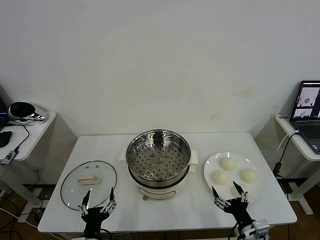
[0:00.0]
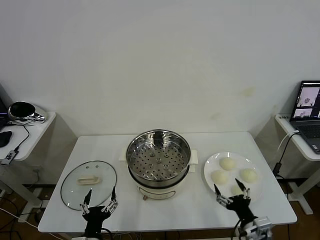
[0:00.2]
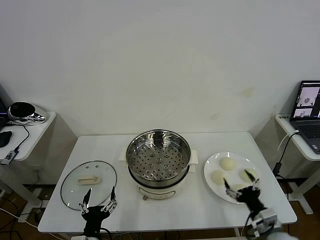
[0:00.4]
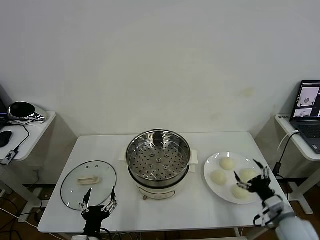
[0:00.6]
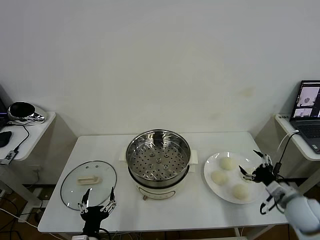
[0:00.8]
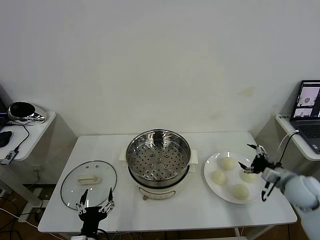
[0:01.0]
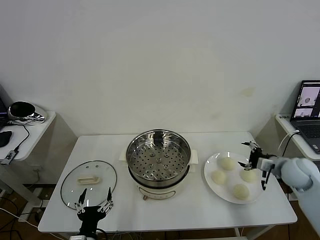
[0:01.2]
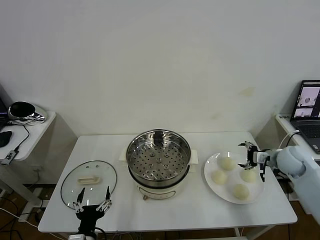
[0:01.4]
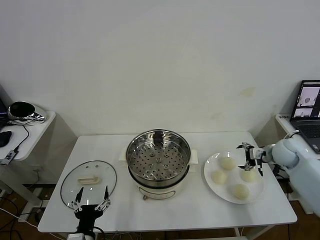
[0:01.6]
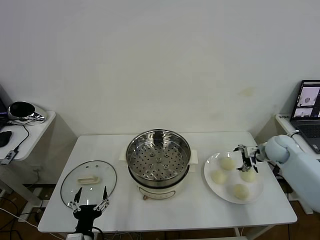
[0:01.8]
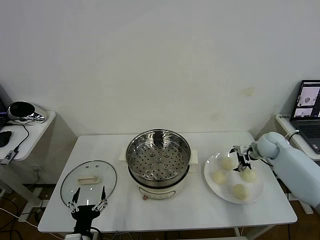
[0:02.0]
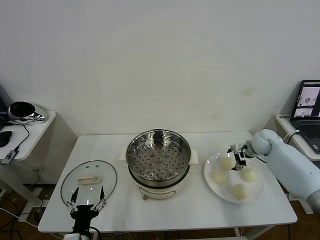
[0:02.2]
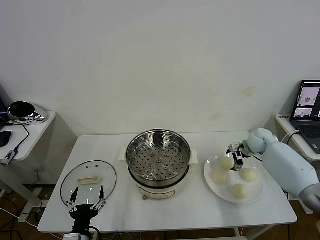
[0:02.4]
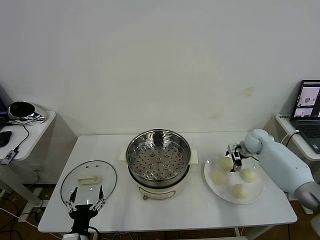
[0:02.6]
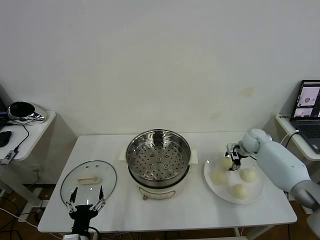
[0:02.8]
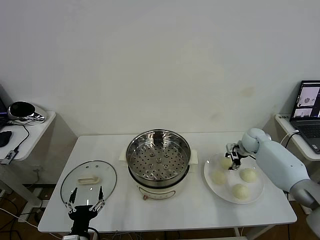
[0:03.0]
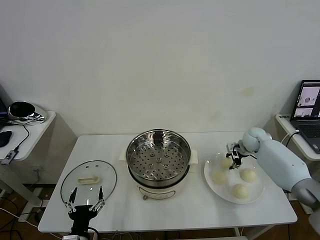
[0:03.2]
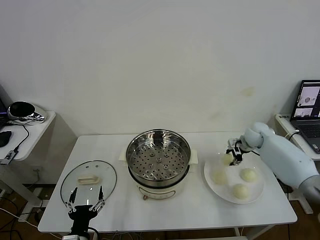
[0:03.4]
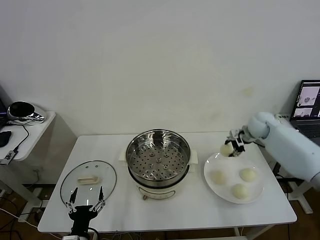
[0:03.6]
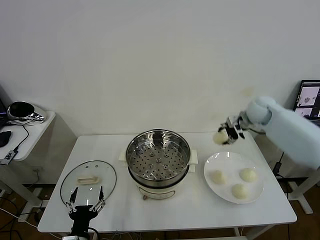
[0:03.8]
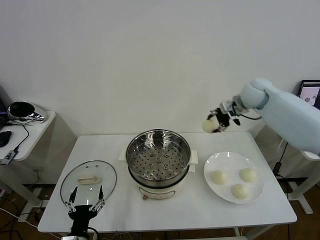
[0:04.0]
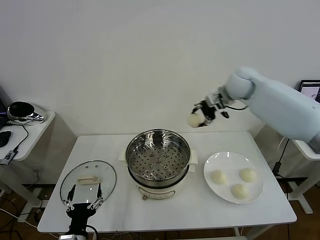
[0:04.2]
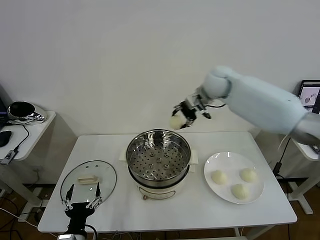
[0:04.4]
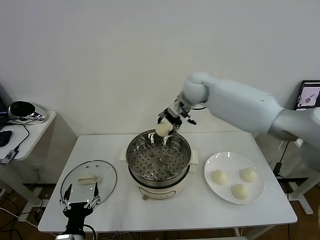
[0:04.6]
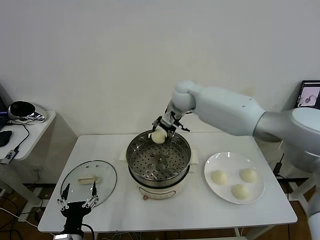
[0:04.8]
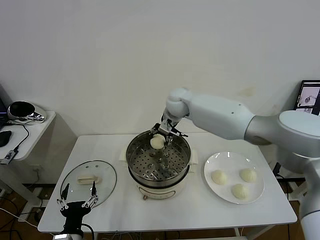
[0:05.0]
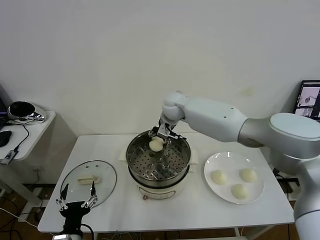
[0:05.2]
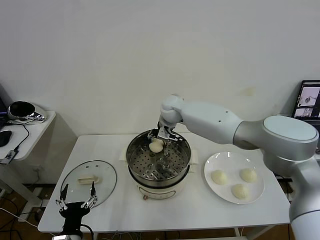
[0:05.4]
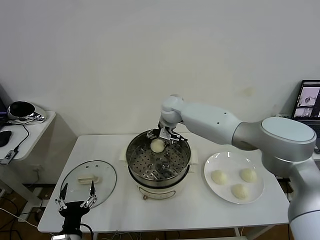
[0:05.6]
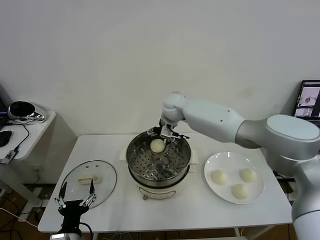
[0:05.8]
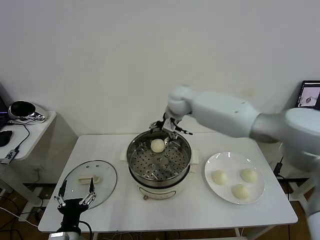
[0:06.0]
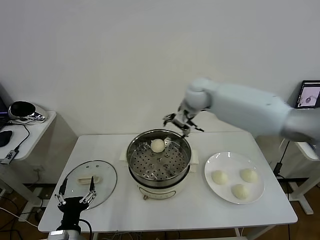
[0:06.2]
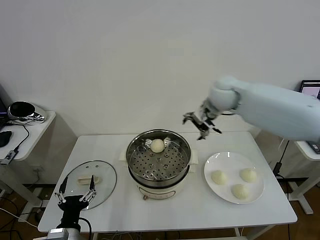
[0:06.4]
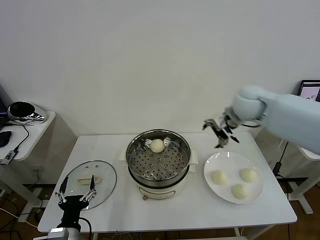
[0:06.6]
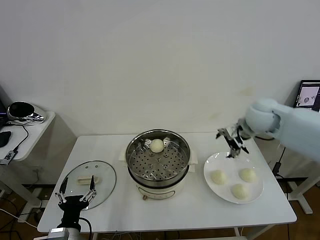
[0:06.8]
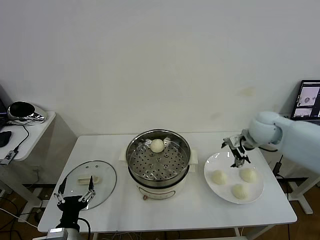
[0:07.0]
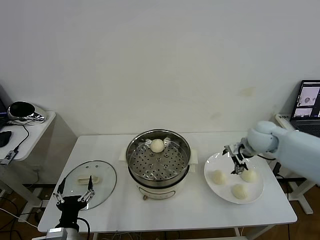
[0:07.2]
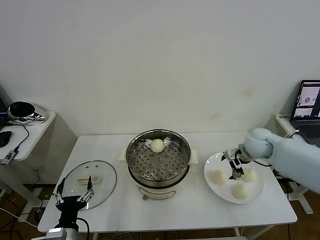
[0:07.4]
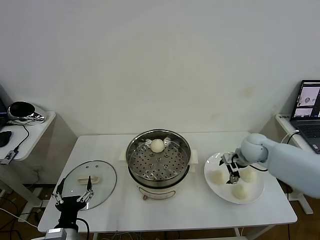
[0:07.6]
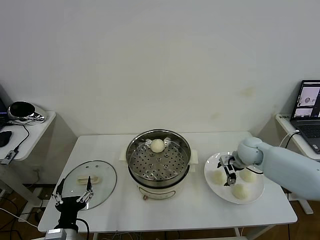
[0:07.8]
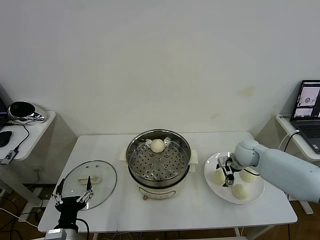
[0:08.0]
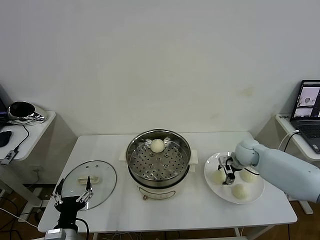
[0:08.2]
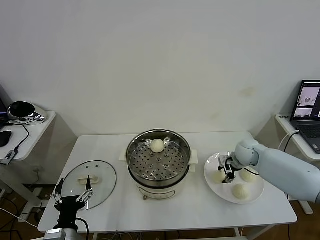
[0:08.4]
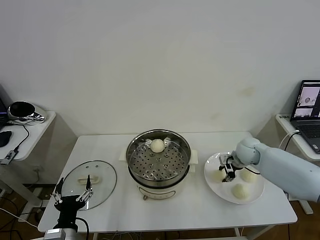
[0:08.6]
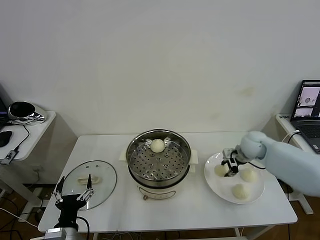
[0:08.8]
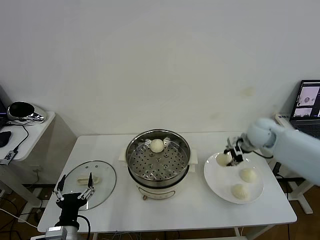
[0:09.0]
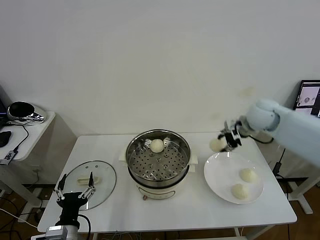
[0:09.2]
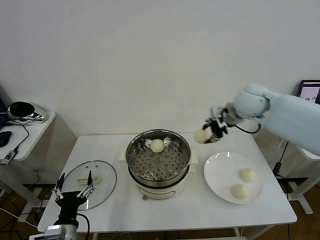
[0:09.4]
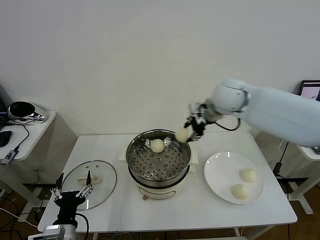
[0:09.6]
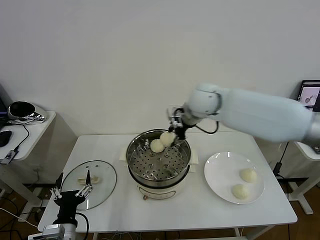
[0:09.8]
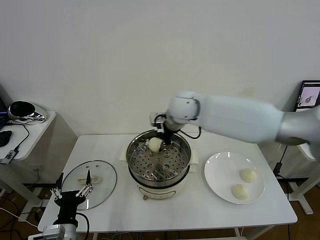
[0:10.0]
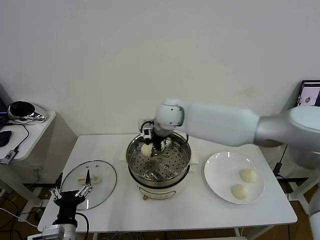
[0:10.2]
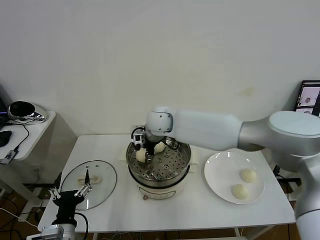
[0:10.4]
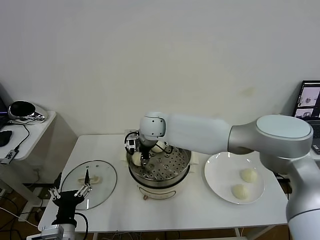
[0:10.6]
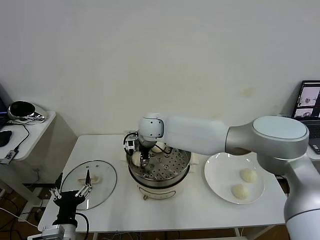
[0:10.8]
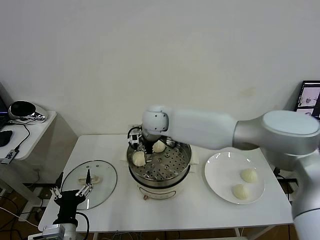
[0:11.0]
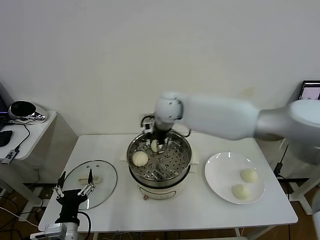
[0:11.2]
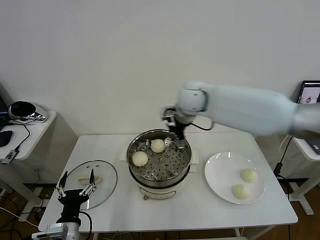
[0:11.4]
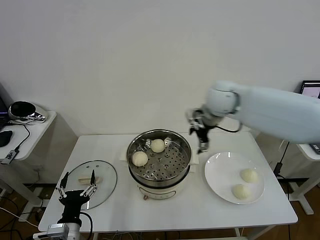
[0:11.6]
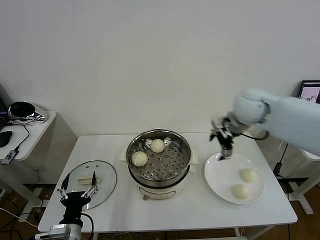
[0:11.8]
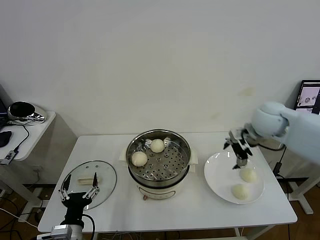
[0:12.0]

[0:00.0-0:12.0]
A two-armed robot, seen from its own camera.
Task of the whole recording: take steamed baozi put them in steamer then cover it.
Step, 0:00.0 to 0:02.8: Grasp the baozi in the plate with right gripper.
Step, 0:03.2 to 0:05.8: Place the baozi on the steamer with right gripper.
Step, 0:06.0 to 0:08.4: Grasp the baozi in the plate with right gripper.
Step, 0:08.6 to 0:10.8: Place the baozi on the steamer with right gripper.
0:01.6 to 0:03.0: The right gripper is displaced forward by roughly 10 cm, and closes its fingers.
0:03.0 to 0:04.4: The right gripper moves to the left and upward, some 35 cm.
0:04.4 to 0:06.0: The right gripper reaches approximately 10 cm downward, then returns, and opens its fingers.
0:06.0 to 0:07.6: The right gripper travels to the right and downward by roughly 30 cm.
0:07.6 to 0:09.0: The right gripper is displaced upward by approximately 10 cm, and closes.
0:09.0 to 0:10.4: The right gripper heads to the left, covering some 35 cm.
0:10.4 to 0:12.0: The right gripper moves to the right, some 35 cm, and opens its fingers.

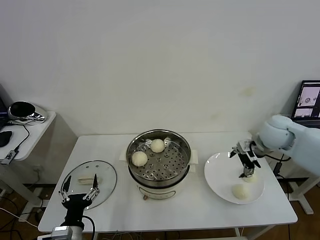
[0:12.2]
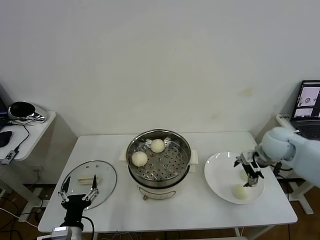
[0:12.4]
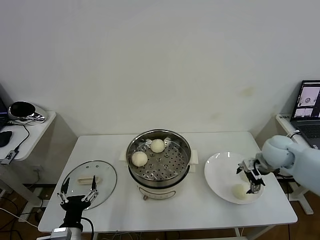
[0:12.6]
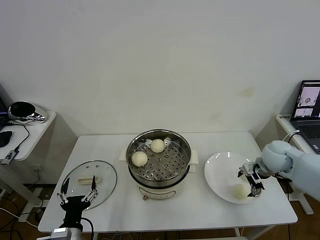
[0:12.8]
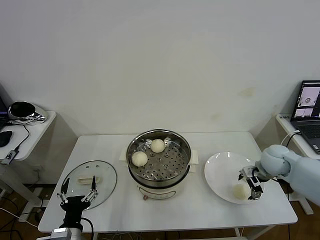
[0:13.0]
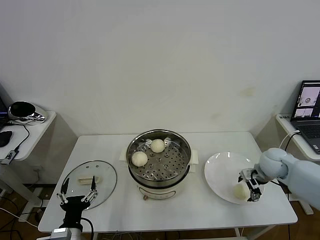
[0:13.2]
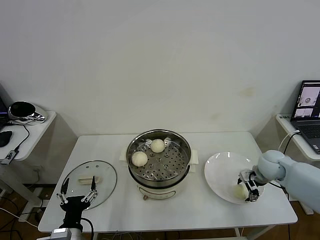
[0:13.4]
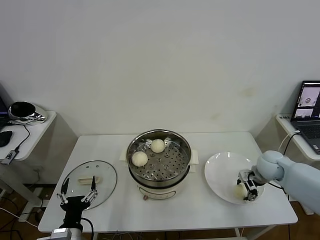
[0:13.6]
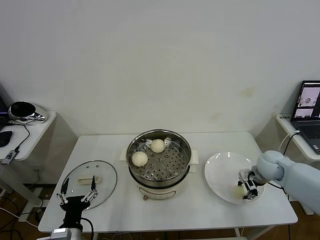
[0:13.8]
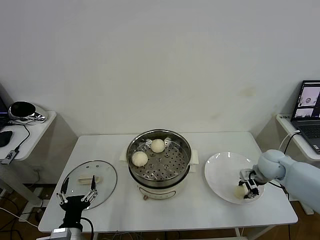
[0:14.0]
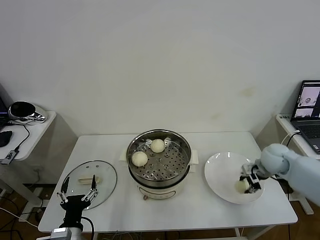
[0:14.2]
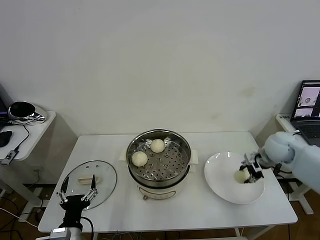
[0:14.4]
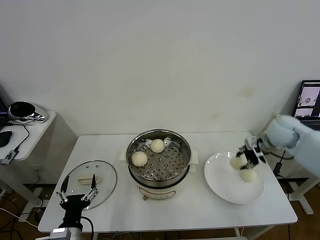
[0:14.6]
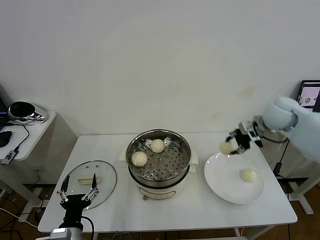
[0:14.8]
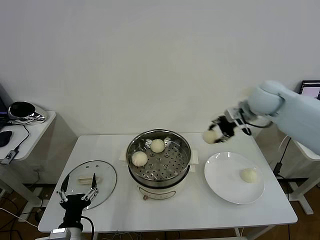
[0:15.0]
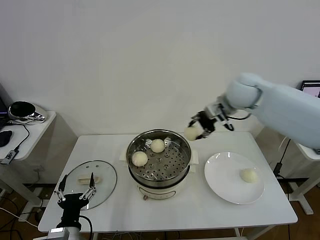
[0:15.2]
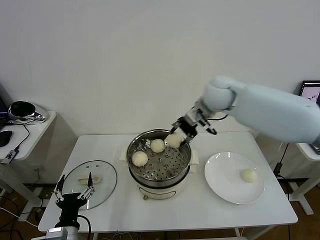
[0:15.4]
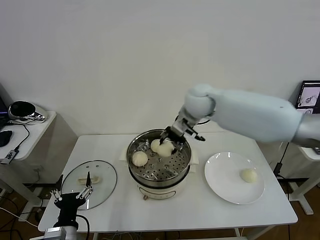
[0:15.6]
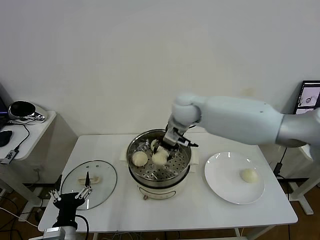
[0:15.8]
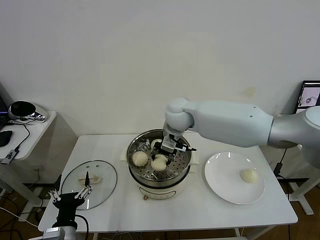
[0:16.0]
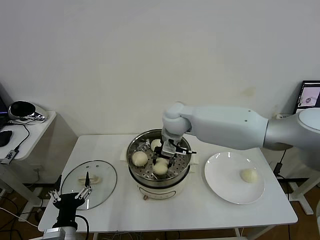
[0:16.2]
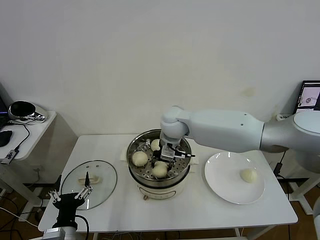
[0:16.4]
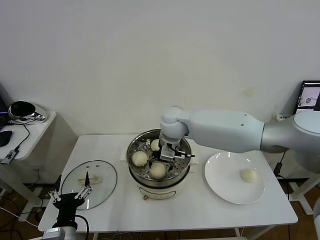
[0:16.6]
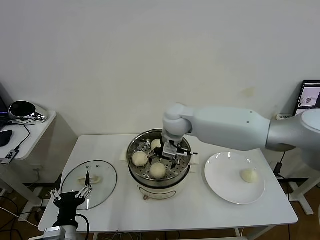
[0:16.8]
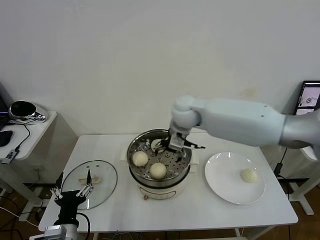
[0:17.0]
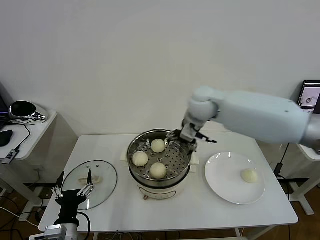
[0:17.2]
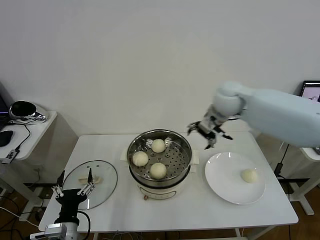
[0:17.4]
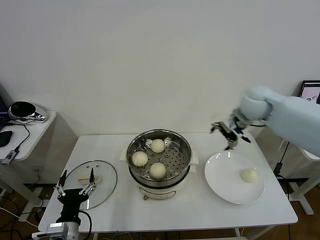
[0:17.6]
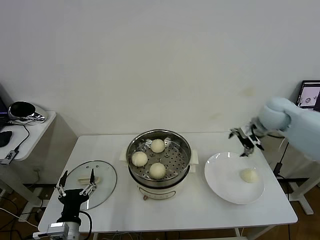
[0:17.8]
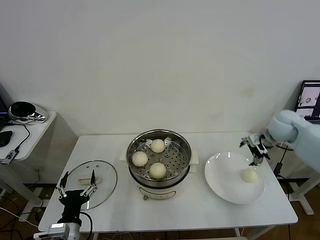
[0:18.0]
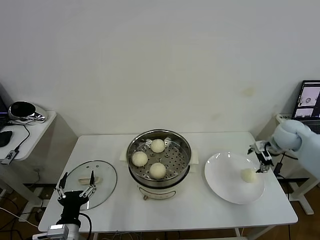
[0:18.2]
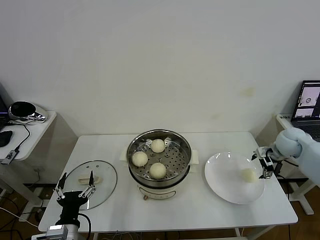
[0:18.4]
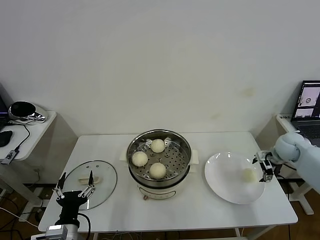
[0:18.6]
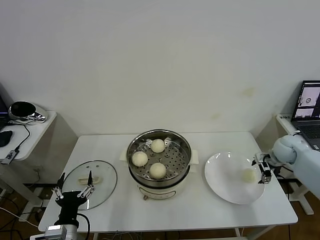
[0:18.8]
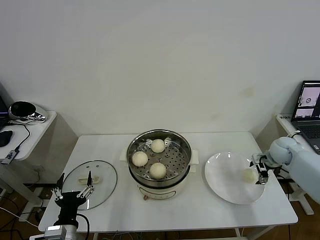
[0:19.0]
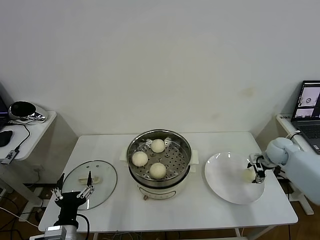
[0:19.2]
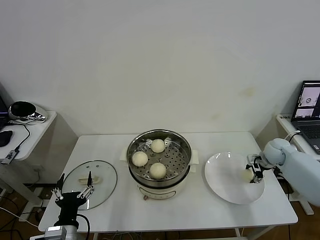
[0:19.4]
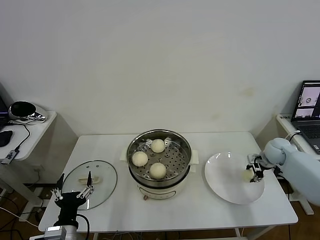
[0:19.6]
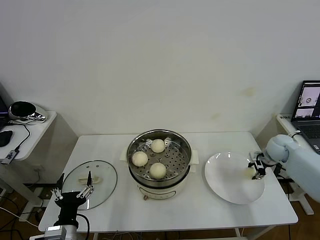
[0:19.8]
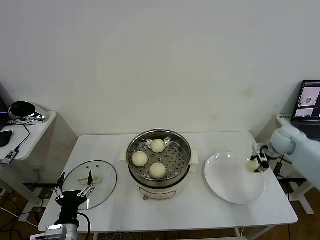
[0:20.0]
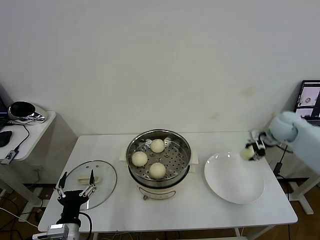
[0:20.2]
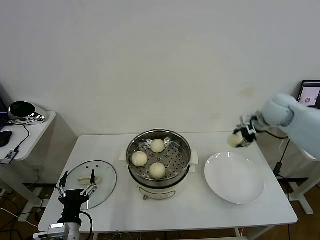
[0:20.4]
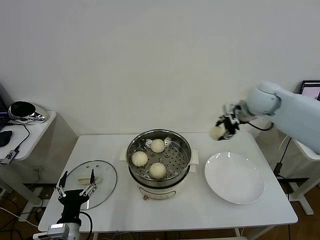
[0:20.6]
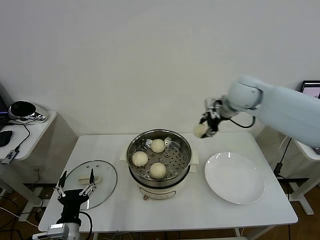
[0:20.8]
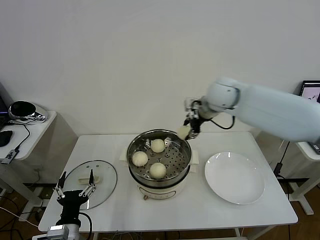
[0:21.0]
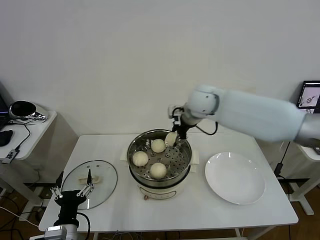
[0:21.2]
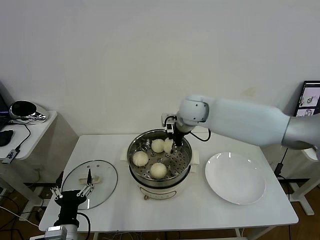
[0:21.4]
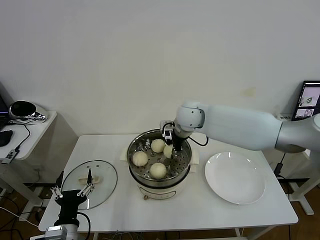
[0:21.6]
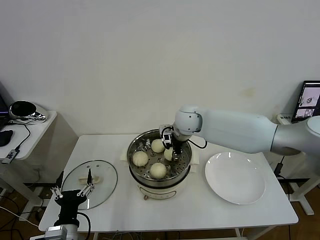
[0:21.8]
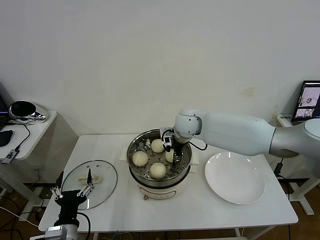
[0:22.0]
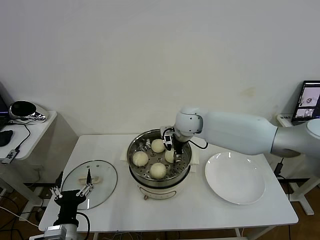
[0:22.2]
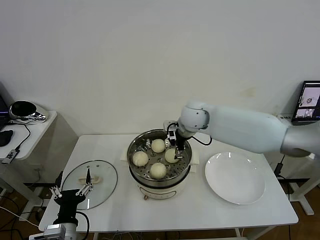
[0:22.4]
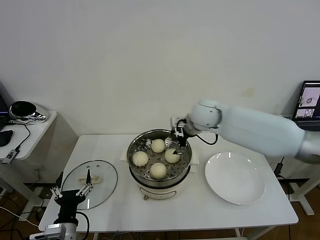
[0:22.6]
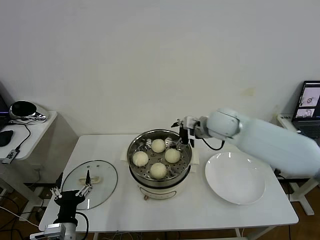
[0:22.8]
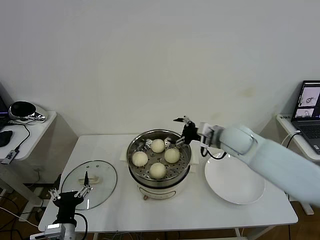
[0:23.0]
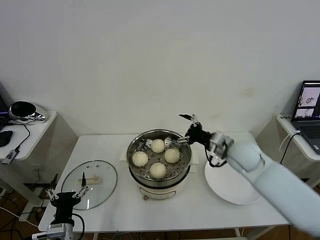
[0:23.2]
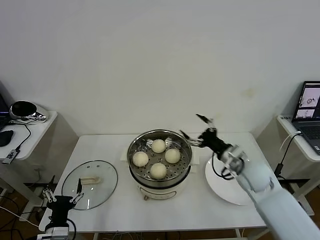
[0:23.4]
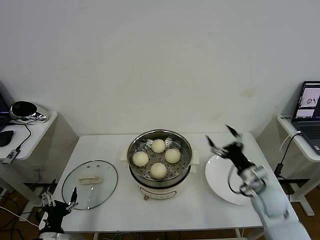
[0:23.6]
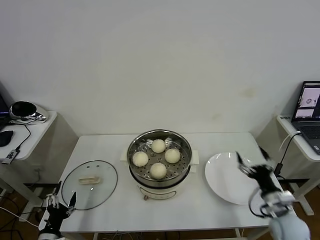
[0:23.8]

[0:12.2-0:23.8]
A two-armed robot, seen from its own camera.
Task of the whole recording: take steamed baozi put them in steamer then cover it.
Step, 0:12.2 to 0:13.8: Grasp the baozi in the plate with right gripper.
Step, 0:14.0 to 0:16.8: Place the baozi on the steamer with right gripper.
Step, 0:17.0 to 0:19.6: Grasp the baozi in the plate with right gripper.
Step, 0:19.8 to 0:22.2: Place the baozi on the steamer with right gripper.
0:12.2 to 0:13.6: The right gripper travels downward by approximately 15 cm, and closes up.
0:13.6 to 0:15.0: The right gripper moves upward and to the left, some 25 cm, and closes its fingers.
0:15.0 to 0:16.6: The right gripper heads to the left and downward, covering some 25 cm, and opens.
0:16.6 to 0:18.0: The right gripper shifts some 35 cm to the right.
0:18.0 to 0:19.4: The right gripper is displaced downward by about 15 cm, and closes up.
0:19.4 to 0:21.0: The right gripper travels to the left and upward by approximately 35 cm.
0:21.0 to 0:22.4: The right gripper moves downward and to the left, some 10 cm, and opens its fingers.
0:22.4 to 0:23.8: The right gripper heads backward, to the right and downward, covering roughly 40 cm, while the left gripper is displaced to the left and downward by approximately 15 cm.
